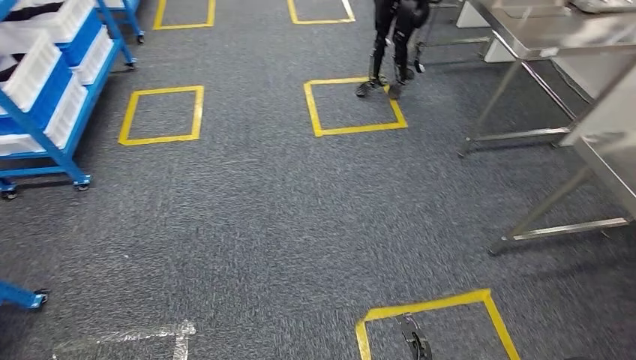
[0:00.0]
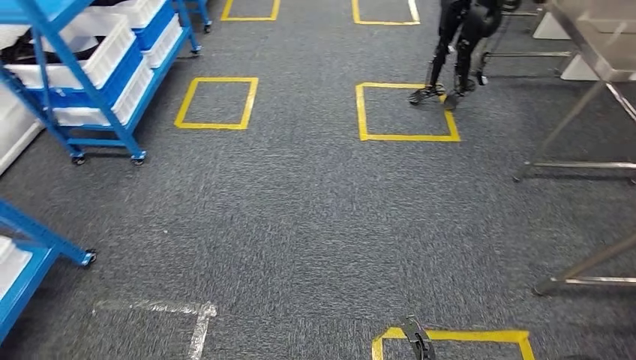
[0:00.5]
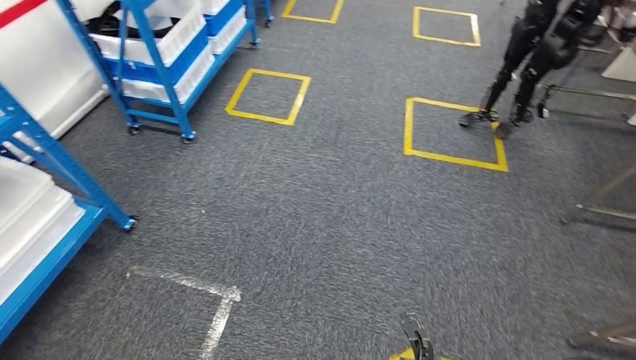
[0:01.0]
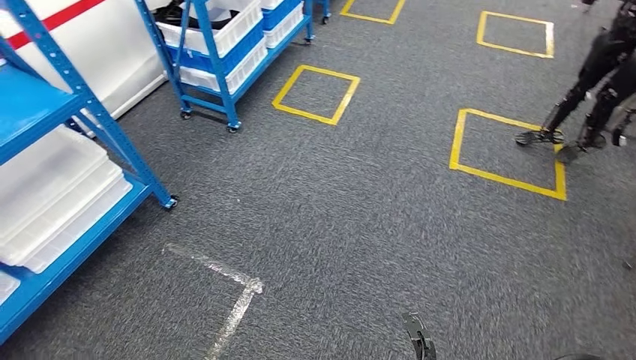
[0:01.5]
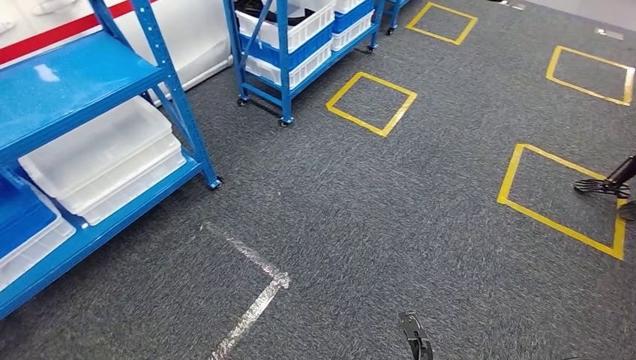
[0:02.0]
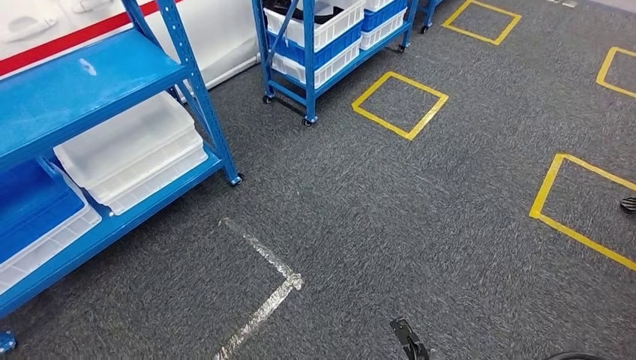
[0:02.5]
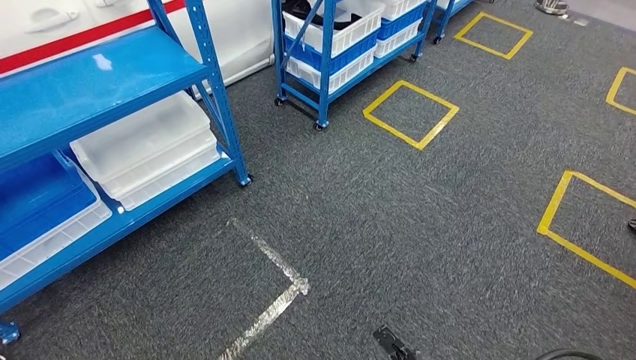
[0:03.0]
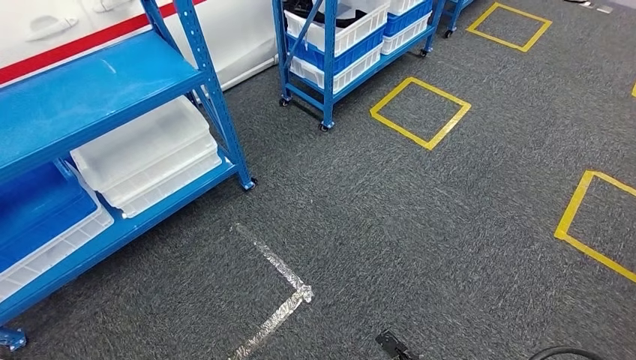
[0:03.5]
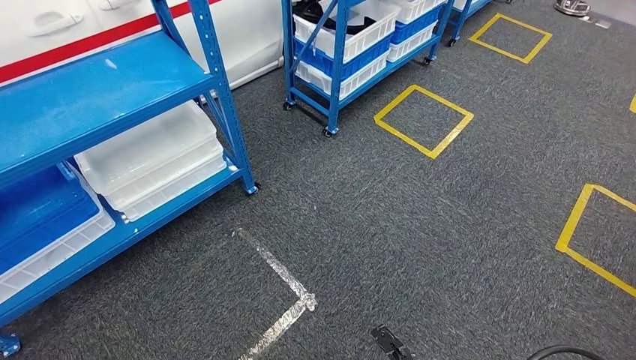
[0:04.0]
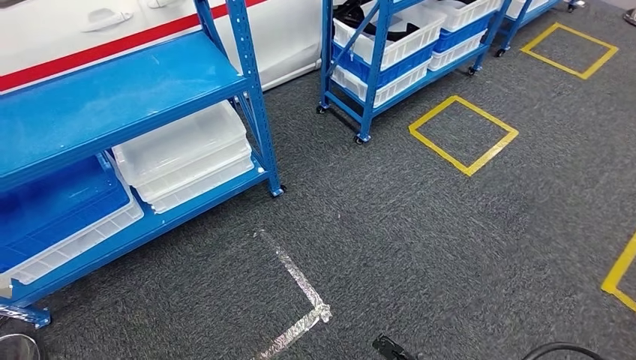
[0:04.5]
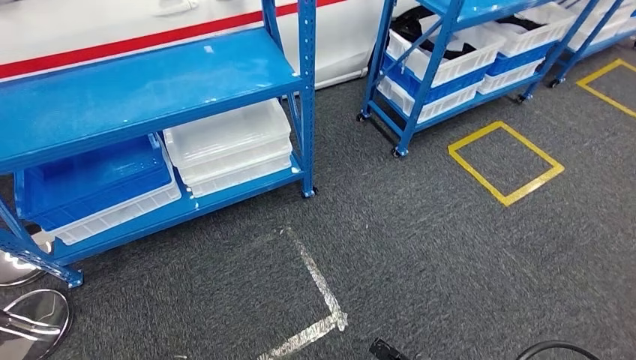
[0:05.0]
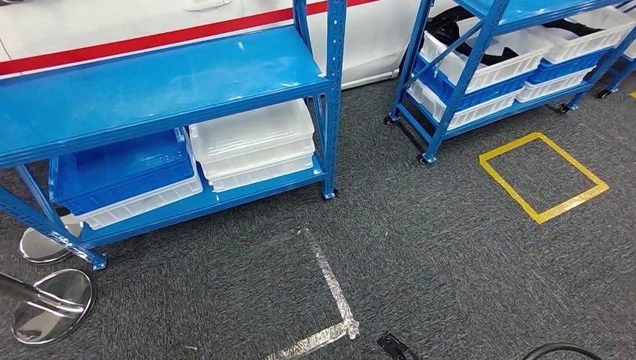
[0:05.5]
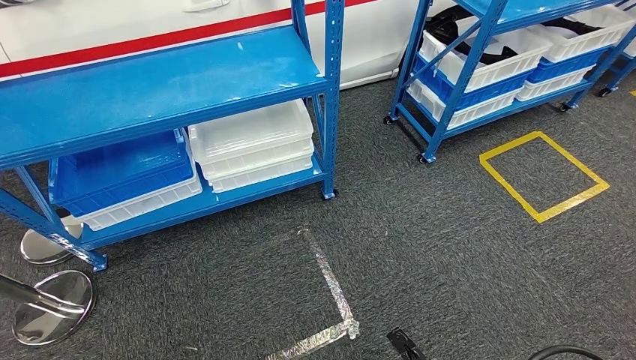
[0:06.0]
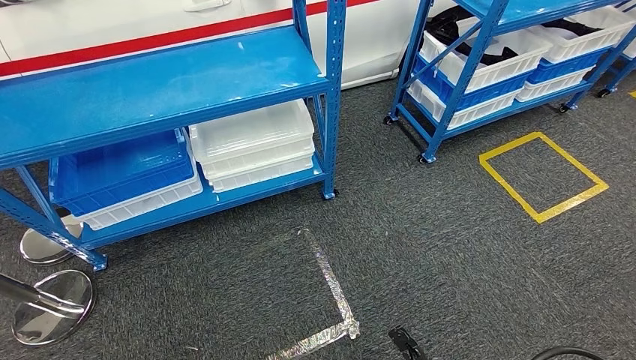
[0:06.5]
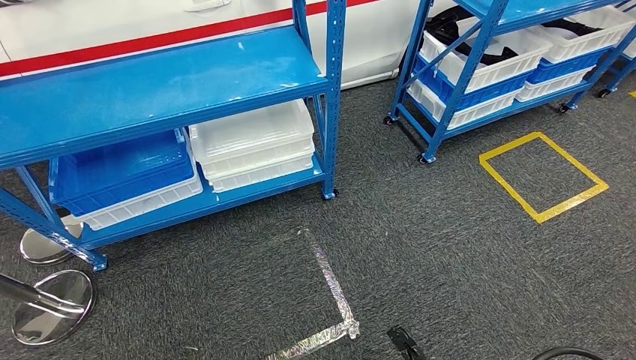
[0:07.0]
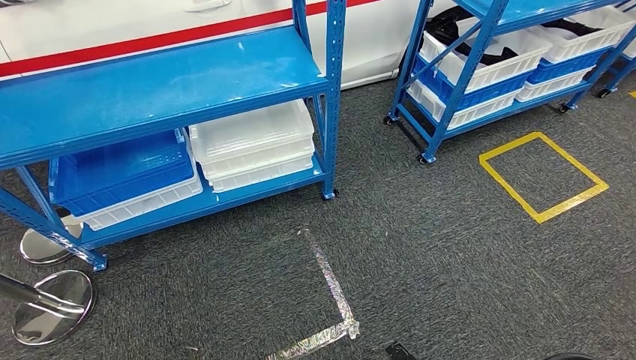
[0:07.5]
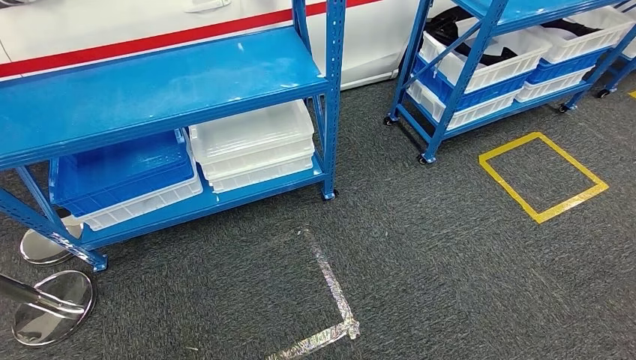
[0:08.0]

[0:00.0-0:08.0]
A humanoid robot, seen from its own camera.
Step, 0:00.0 to 0:08.0: Move to the initial position of the shelf.
0:06.0 to 0:08.0: The right hand heads backward, covering about 5 cm. Meanwhile the left hand travels backward by about 15 cm.
